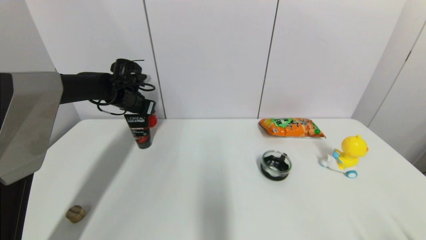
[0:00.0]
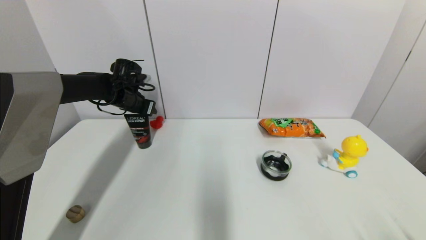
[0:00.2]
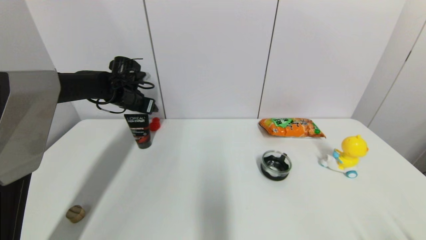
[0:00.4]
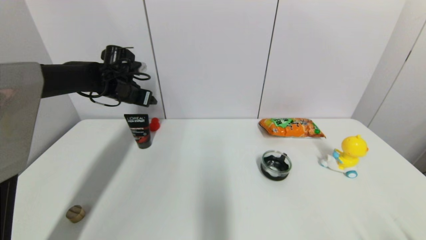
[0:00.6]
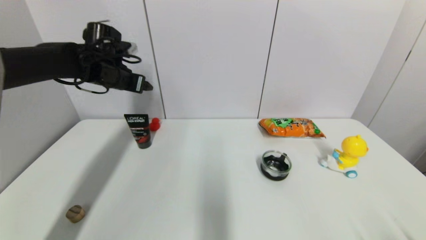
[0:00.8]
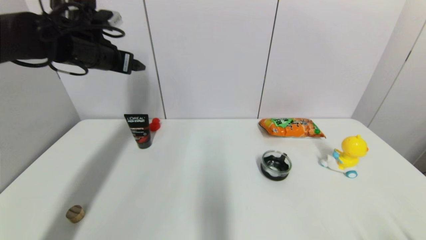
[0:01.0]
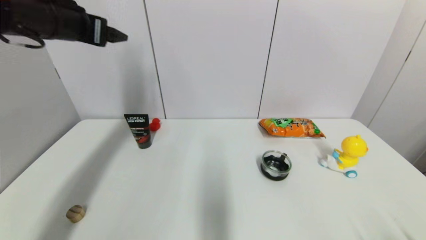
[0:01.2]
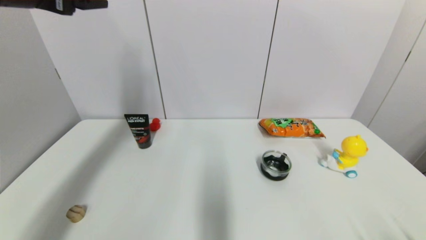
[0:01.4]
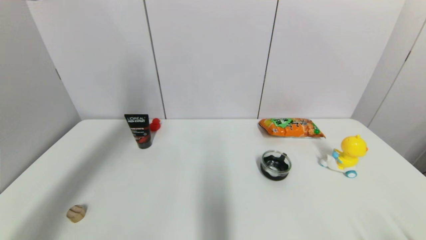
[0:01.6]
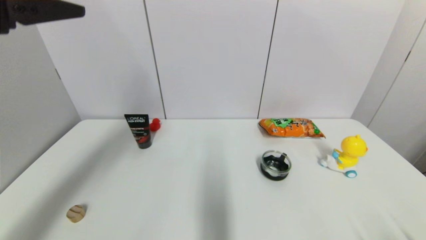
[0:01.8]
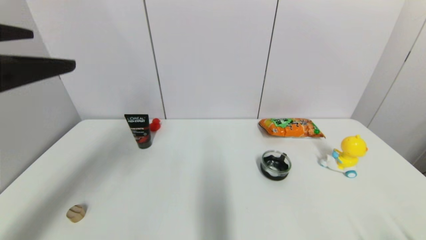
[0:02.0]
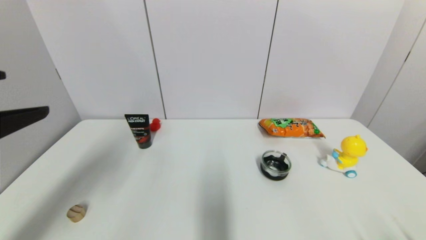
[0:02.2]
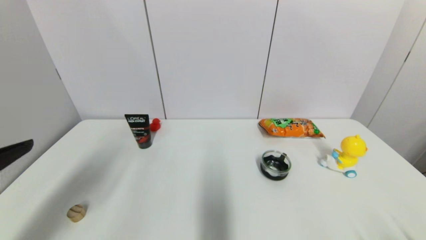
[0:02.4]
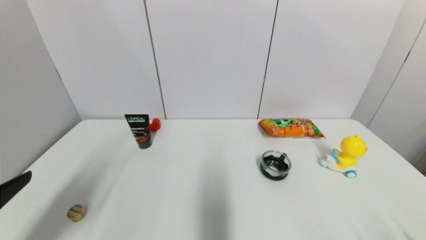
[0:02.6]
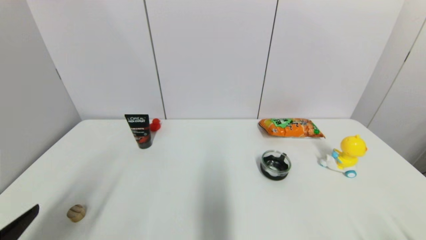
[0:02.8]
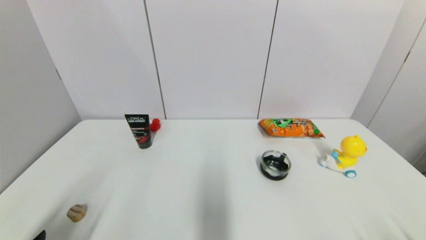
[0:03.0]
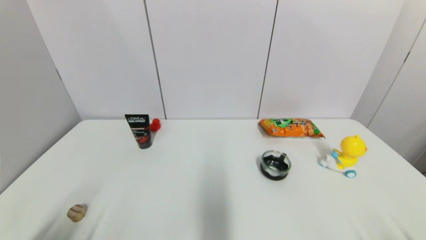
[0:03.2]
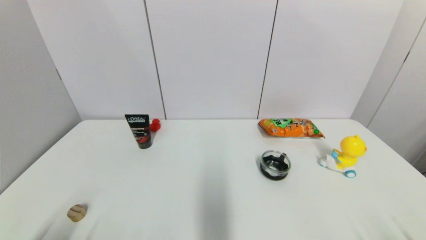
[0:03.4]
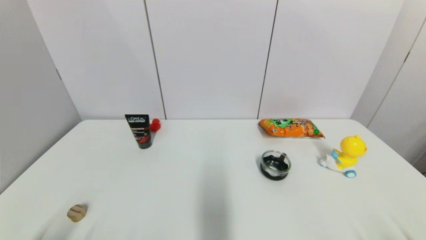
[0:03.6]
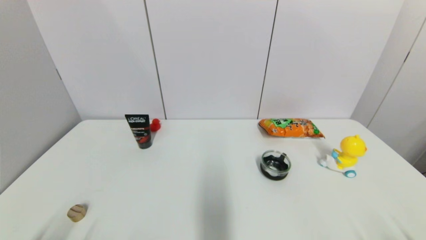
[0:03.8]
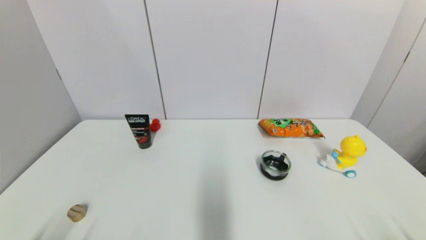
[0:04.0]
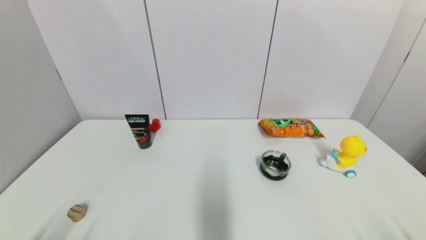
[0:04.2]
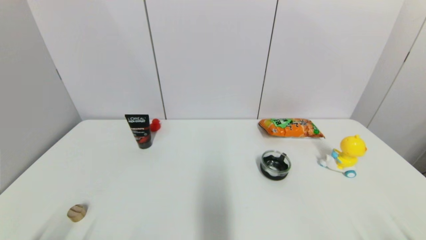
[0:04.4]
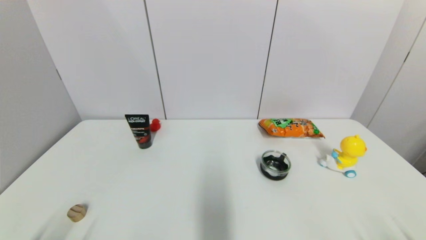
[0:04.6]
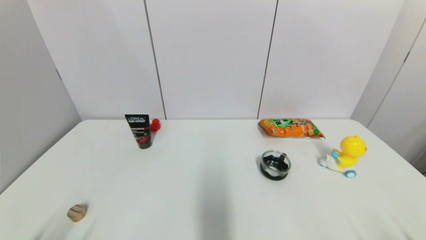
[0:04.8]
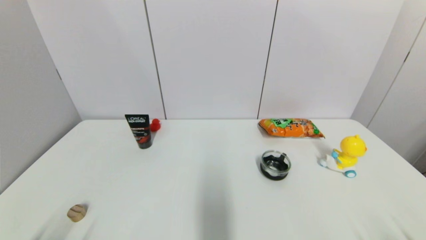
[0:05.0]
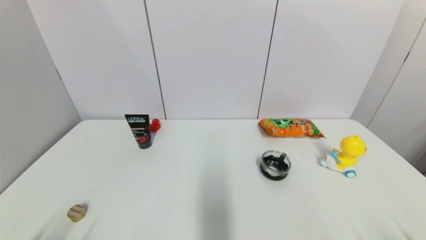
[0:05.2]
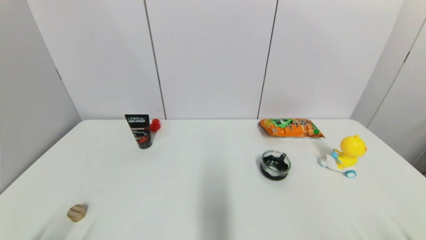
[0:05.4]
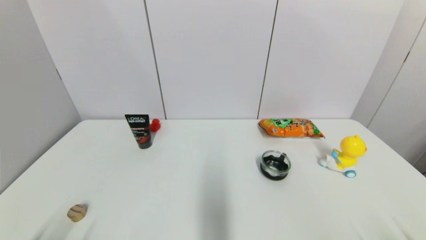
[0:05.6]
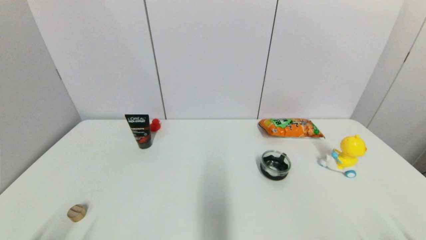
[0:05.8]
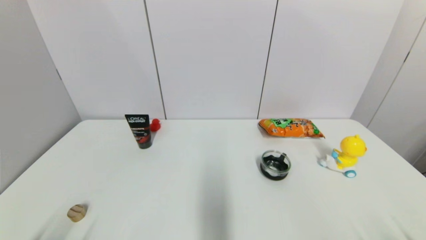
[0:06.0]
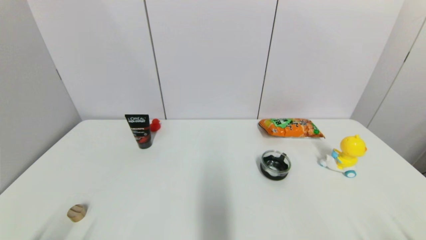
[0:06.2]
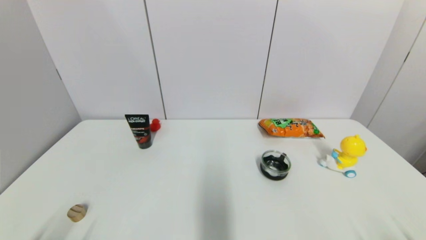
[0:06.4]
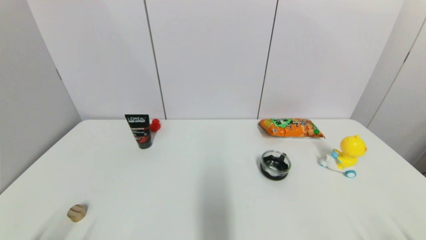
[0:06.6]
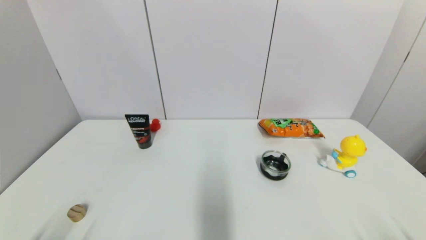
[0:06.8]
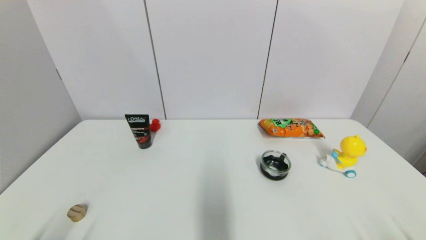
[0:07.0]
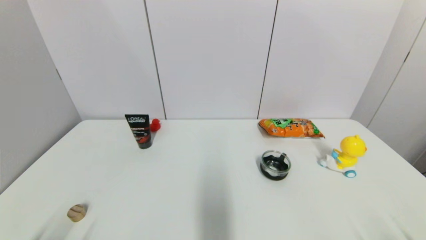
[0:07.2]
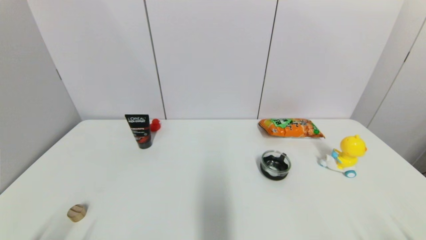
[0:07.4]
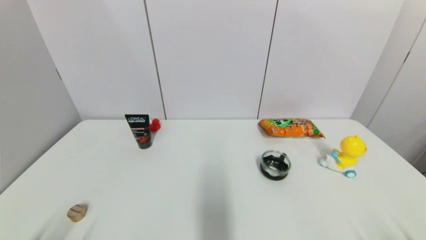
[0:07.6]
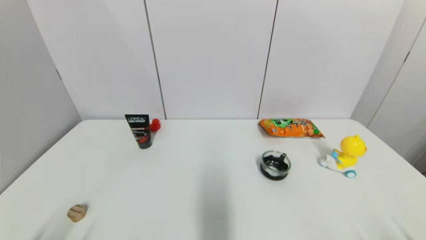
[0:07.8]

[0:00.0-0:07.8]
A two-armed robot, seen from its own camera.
0:00.0 to 0:01.6: The left gripper goes approximately 35 cm backward and upward, and opens.
0:01.6 to 0:03.2: The left gripper goes about 35 cm downward and backward.
0:04.6 to 0:07.8: The two grippers keep their place.
